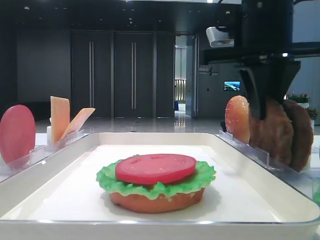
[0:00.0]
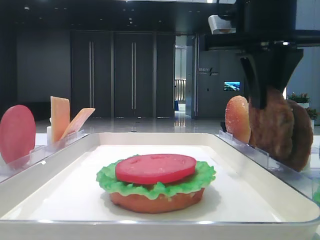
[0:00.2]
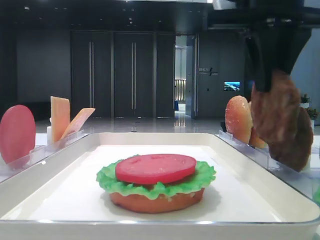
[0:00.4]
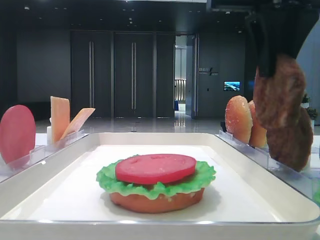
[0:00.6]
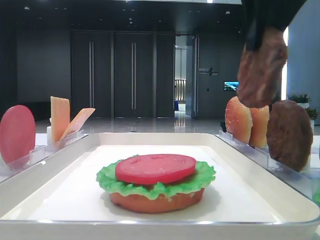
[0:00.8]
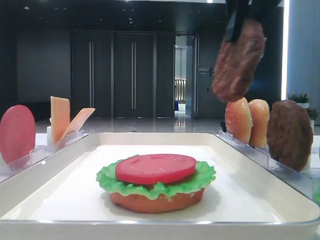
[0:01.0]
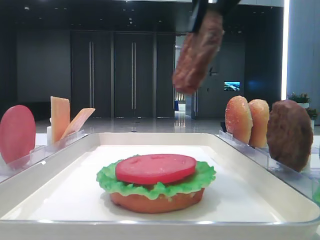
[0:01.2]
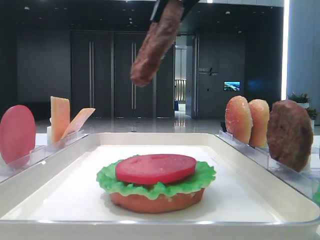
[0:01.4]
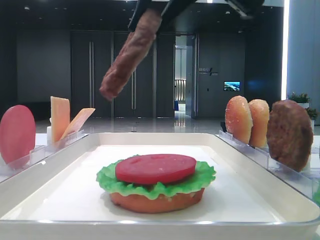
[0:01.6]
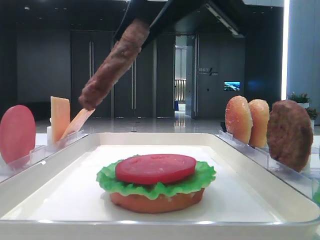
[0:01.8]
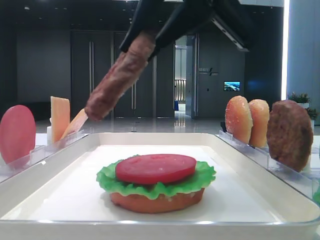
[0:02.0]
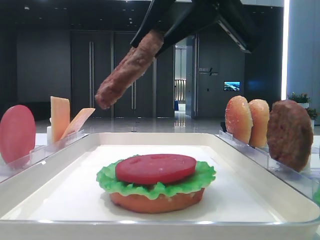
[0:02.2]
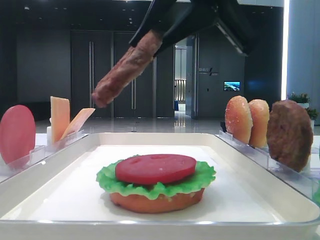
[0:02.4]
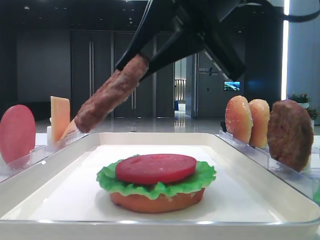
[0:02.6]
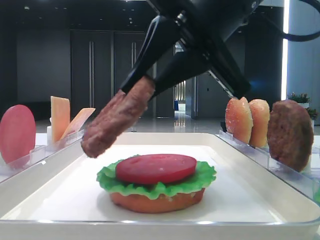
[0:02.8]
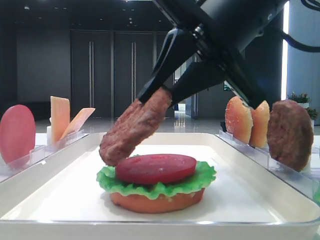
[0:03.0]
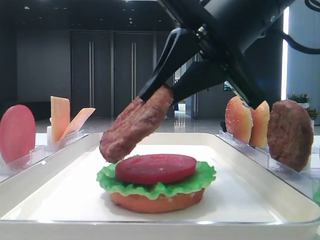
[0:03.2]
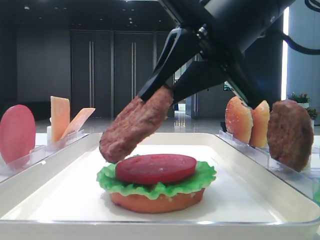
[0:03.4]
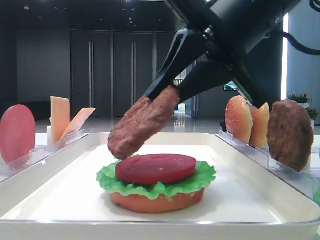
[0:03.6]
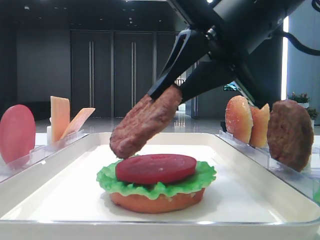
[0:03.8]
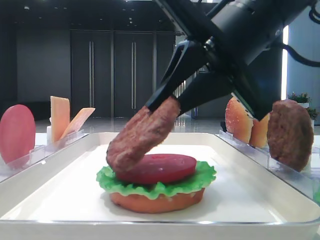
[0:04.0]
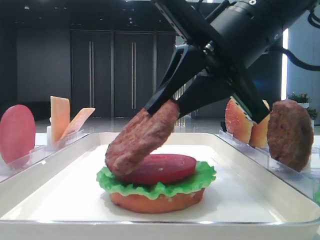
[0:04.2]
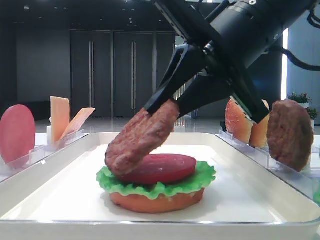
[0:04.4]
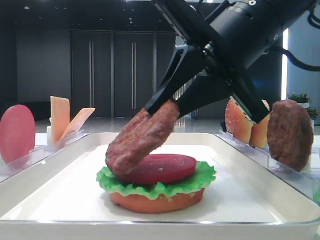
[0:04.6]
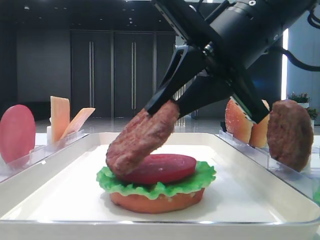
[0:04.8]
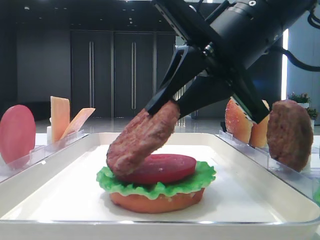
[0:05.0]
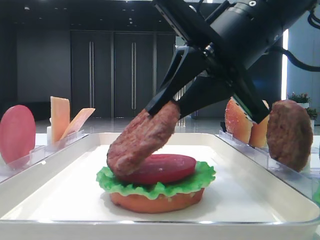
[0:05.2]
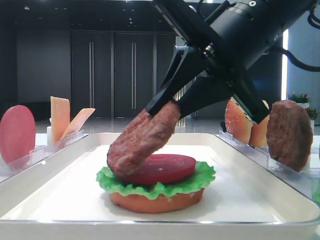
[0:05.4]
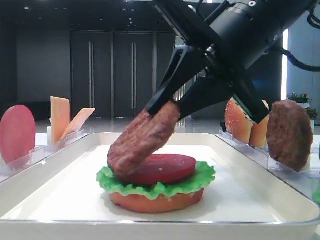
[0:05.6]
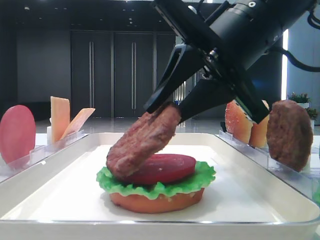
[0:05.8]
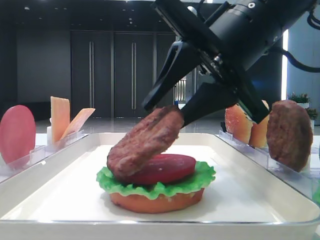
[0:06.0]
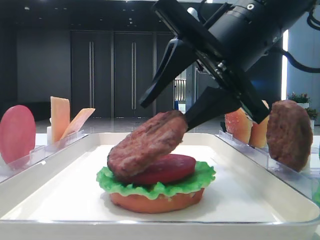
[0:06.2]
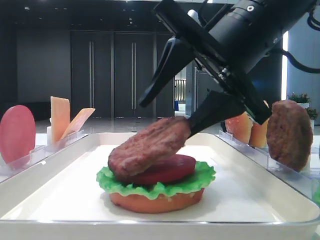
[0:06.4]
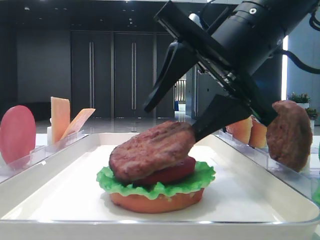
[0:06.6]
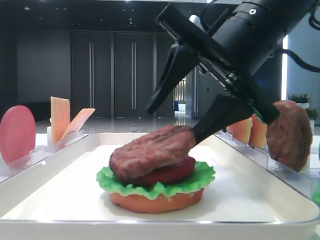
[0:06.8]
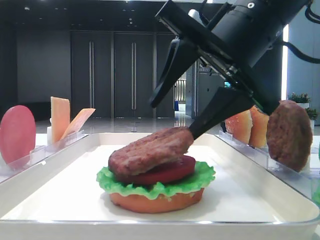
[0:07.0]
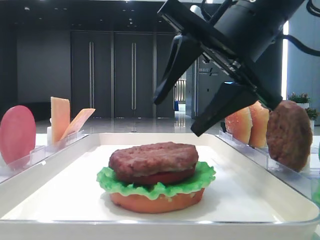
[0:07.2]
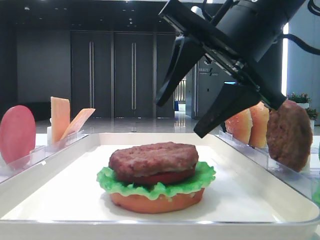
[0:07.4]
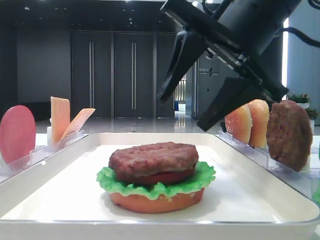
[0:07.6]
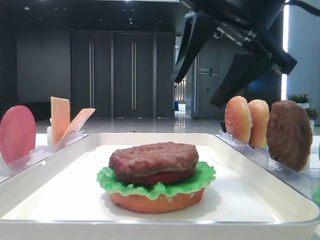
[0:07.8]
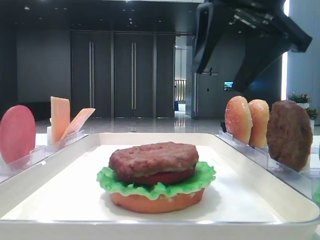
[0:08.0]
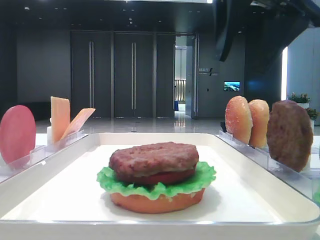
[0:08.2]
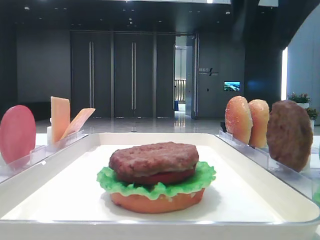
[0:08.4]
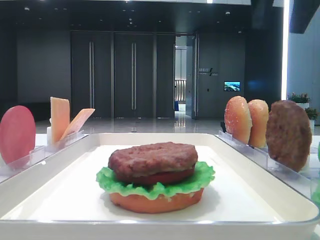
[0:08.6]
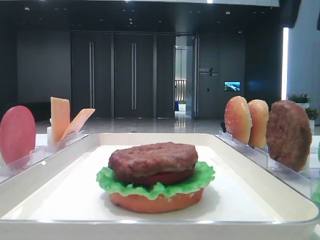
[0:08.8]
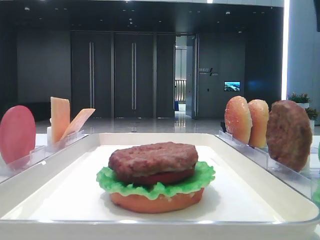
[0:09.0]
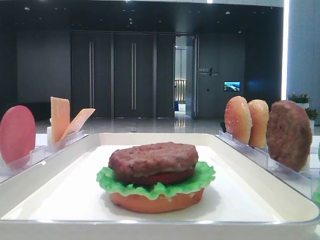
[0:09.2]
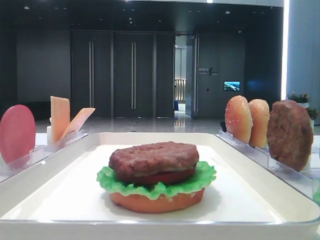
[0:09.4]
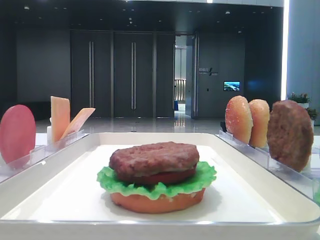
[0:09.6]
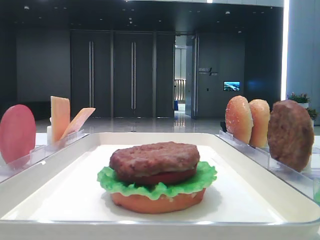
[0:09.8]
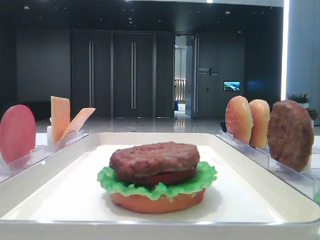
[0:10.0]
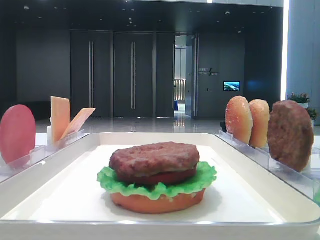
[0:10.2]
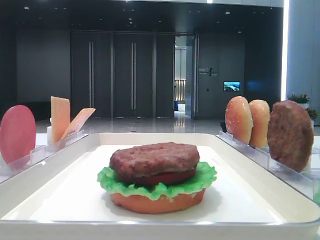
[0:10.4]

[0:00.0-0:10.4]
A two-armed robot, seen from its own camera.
Step, 0:00.4 to 0:07.0: Place the patty on the tomato slice with the right hand.
0:00.0 to 0:01.4: The right gripper heads upward, backward and to the left, covering some 15 cm.
0:01.4 to 0:03.0: The right gripper is displaced downward by about 10 cm.
0:03.0 to 0:04.4: The grippers move only a little.
0:04.4 to 0:06.0: The right gripper opens up.
0:06.0 to 0:07.4: The right gripper opens.
0:07.4 to 0:09.0: The right gripper is displaced to the right and upward by approximately 20 cm.
0:09.0 to 0:10.4: The right gripper is displaced backward by approximately 20 cm.

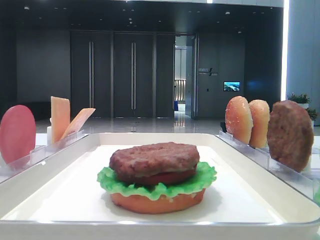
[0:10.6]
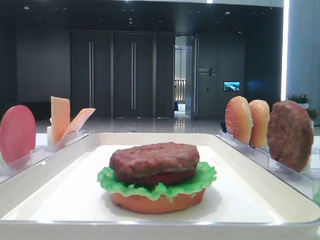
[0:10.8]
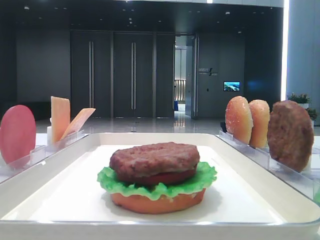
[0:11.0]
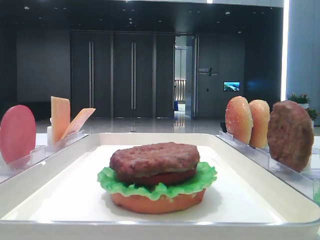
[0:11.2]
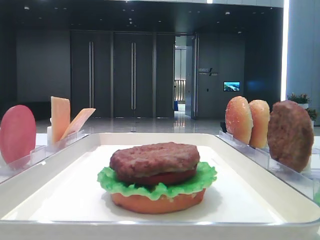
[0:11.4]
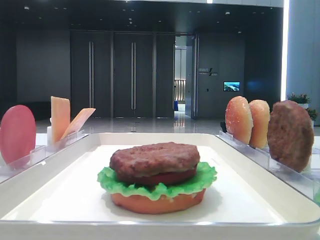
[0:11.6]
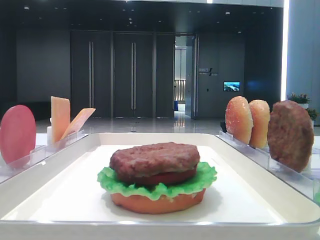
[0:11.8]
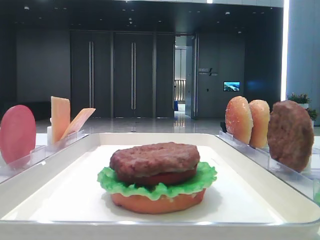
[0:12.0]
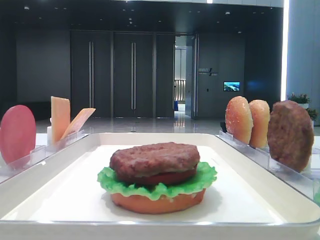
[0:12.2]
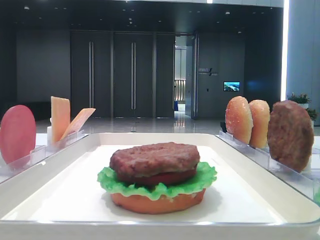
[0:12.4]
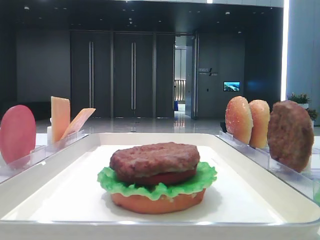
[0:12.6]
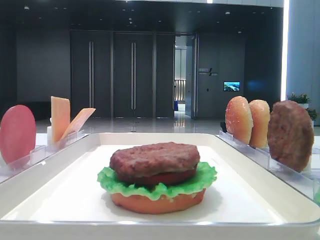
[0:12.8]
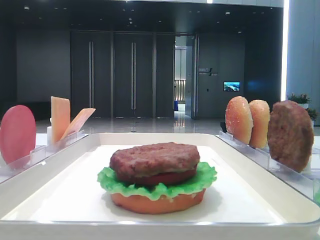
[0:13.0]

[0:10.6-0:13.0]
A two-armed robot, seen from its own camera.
0:11.8 to 0:13.0: Both grippers stay put.

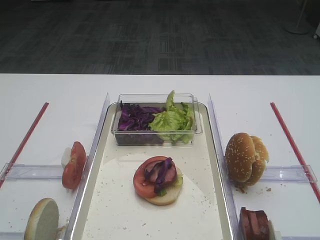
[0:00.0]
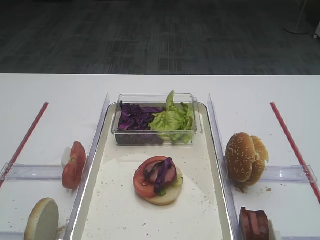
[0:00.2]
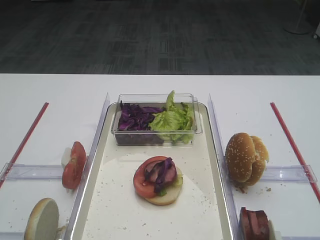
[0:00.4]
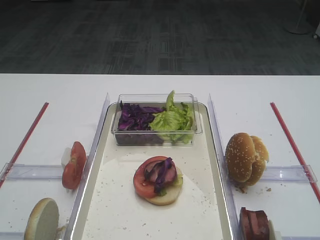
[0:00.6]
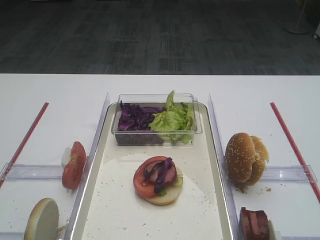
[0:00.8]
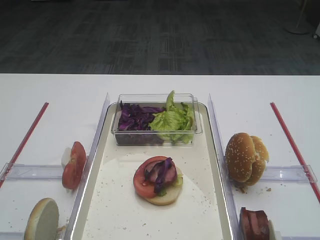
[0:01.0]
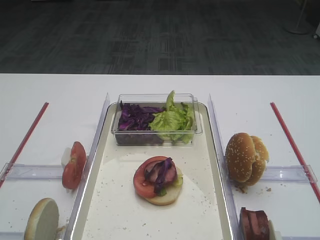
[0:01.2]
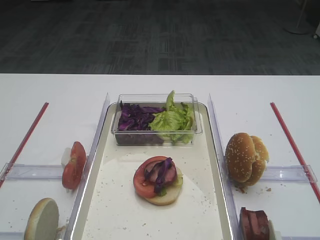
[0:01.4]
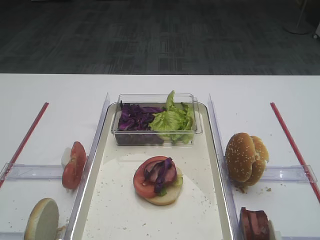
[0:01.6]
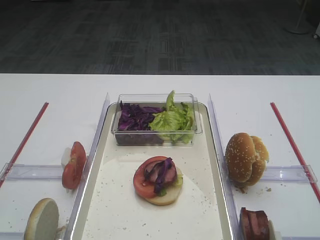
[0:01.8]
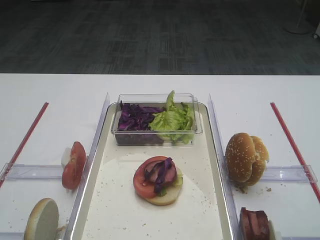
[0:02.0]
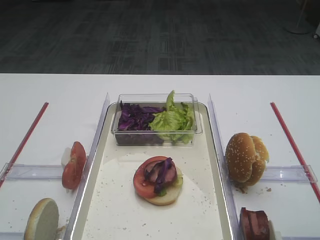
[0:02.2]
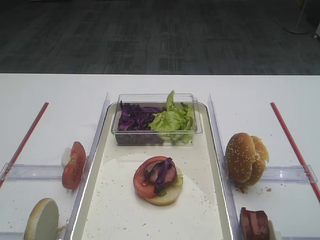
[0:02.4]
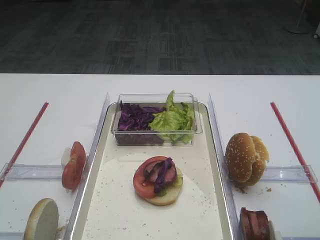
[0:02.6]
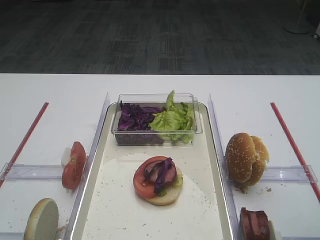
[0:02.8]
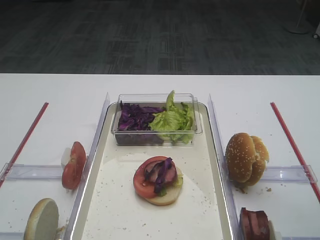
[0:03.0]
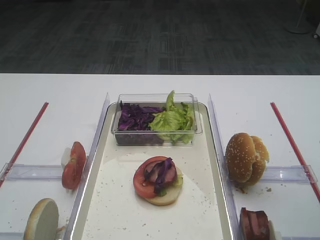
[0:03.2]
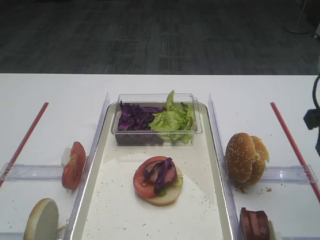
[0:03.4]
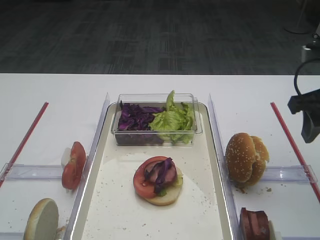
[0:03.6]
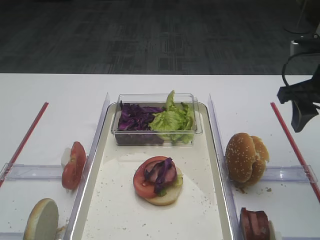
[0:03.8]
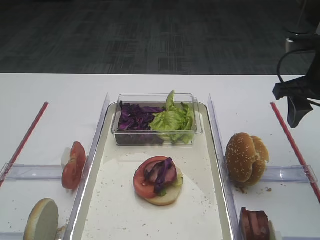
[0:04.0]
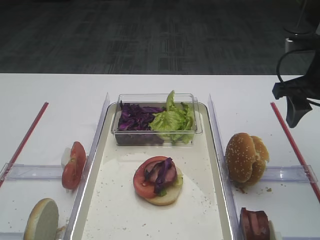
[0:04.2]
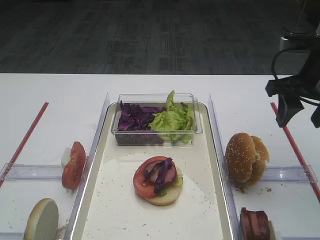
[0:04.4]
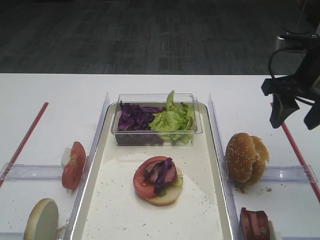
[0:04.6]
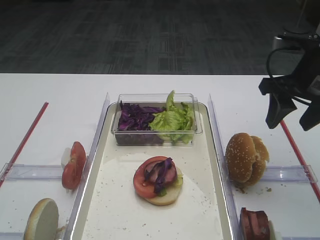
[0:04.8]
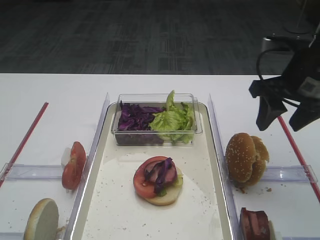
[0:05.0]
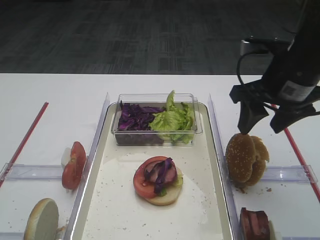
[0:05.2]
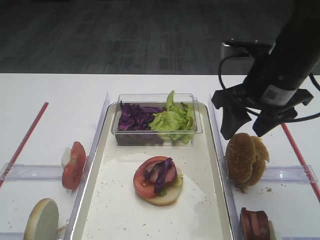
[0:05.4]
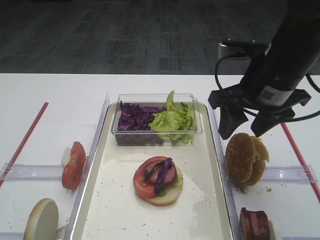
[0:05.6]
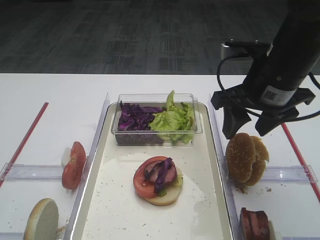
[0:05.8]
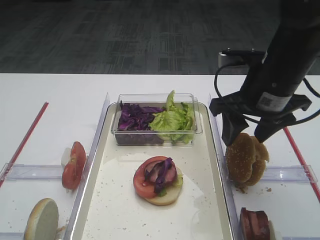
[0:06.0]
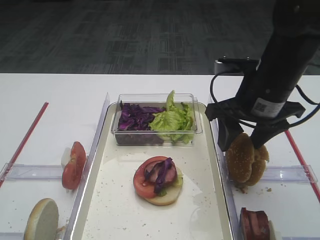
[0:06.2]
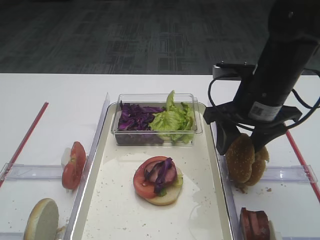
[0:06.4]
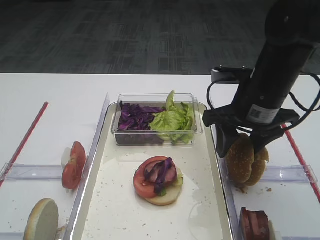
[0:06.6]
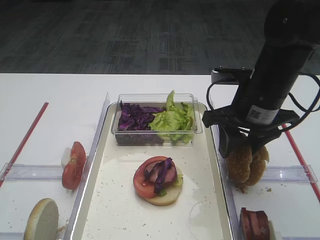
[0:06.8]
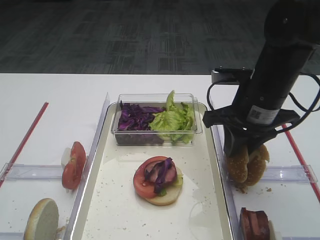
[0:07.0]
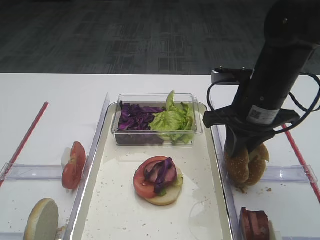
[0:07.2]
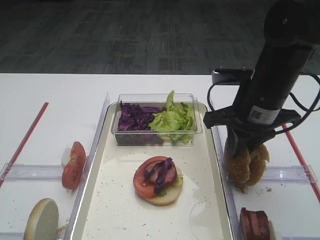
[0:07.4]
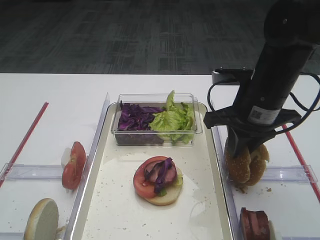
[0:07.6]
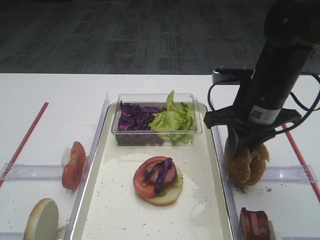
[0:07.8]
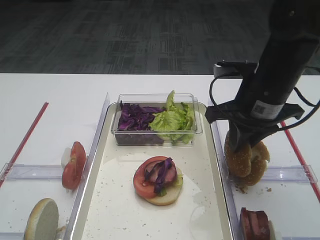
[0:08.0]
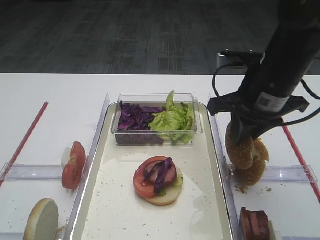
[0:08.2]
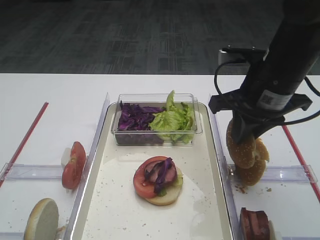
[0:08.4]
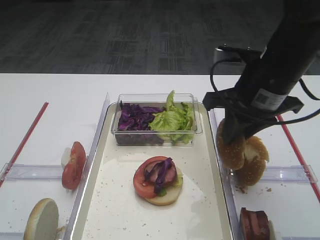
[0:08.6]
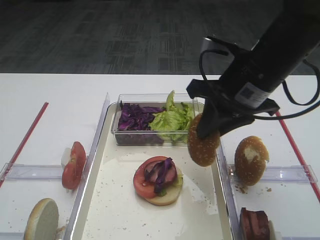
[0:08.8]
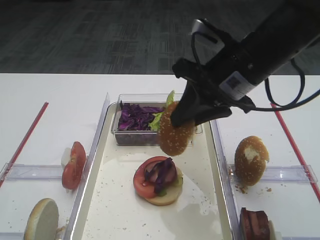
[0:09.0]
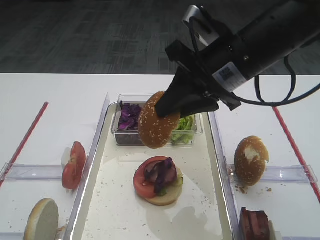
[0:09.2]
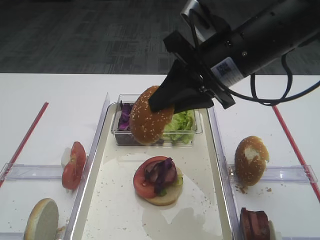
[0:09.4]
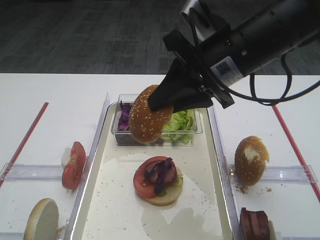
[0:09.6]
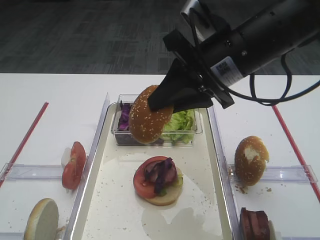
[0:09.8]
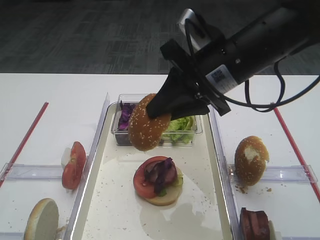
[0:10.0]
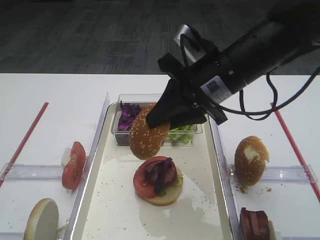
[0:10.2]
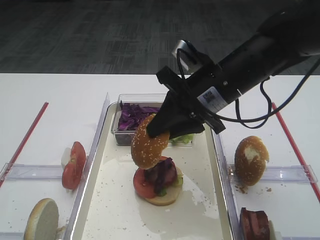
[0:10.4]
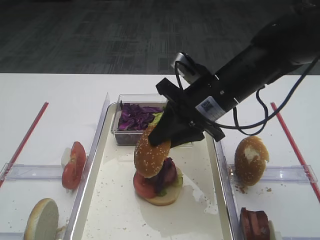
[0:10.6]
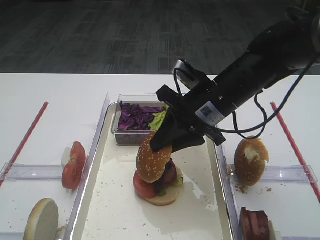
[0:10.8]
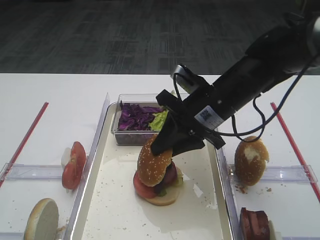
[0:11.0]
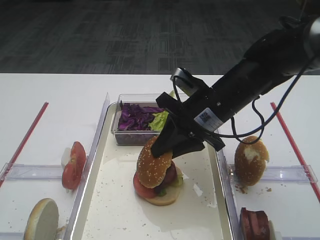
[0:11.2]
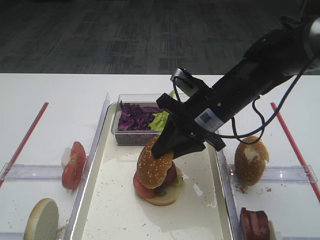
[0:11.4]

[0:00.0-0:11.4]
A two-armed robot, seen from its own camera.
Step, 0:00.0 to 0:08.2: Pick up the hamburger lid with the right gripper.
0:02.8 to 0:04.2: The right gripper heads forward, covering some 20 cm.
0:04.2 to 0:05.6: The right gripper shifts some 10 cm to the left.
0:05.6 to 0:07.2: The right gripper closes its fingers.
0:07.2 to 0:08.6: The grippers make only small movements.
0:08.6 to 0:10.0: The right gripper shifts roughly 5 cm to the left.
0:10.0 to 0:11.4: The right gripper goes some 10 cm downward.
